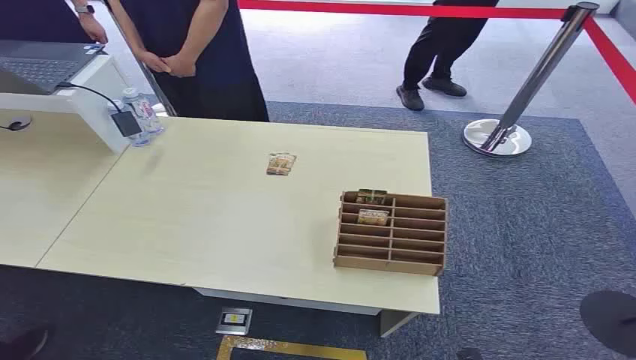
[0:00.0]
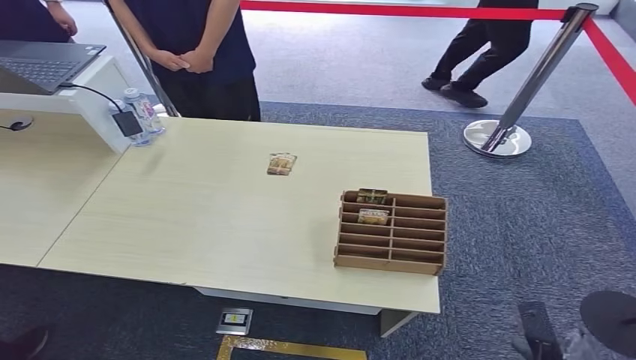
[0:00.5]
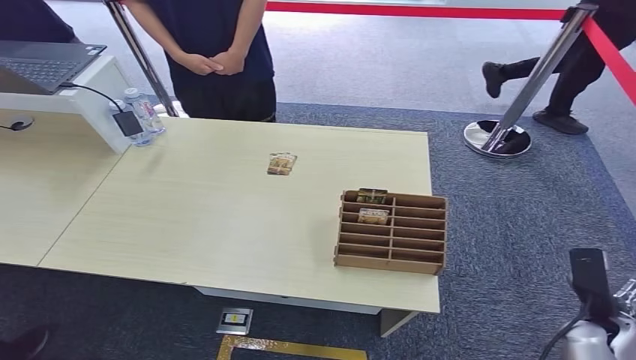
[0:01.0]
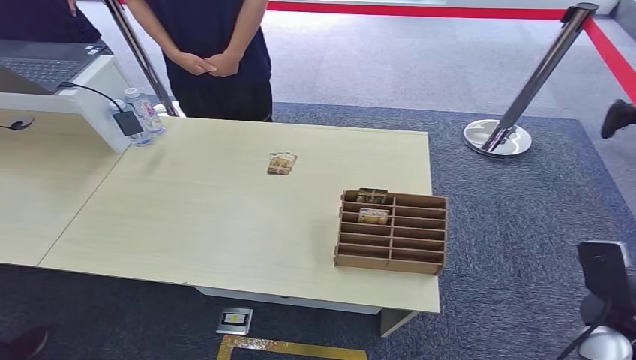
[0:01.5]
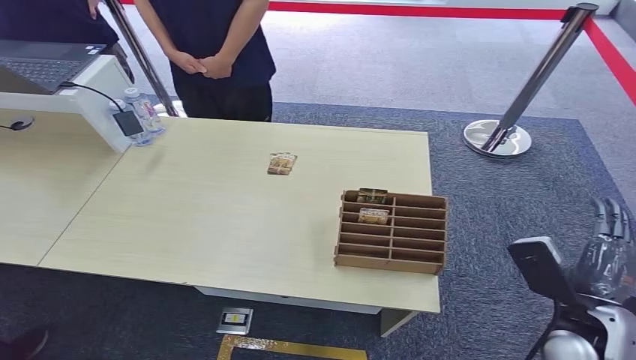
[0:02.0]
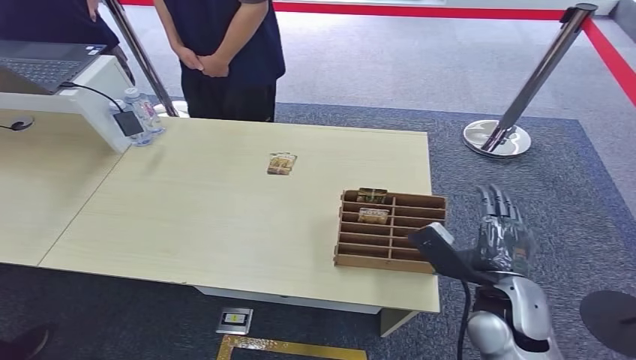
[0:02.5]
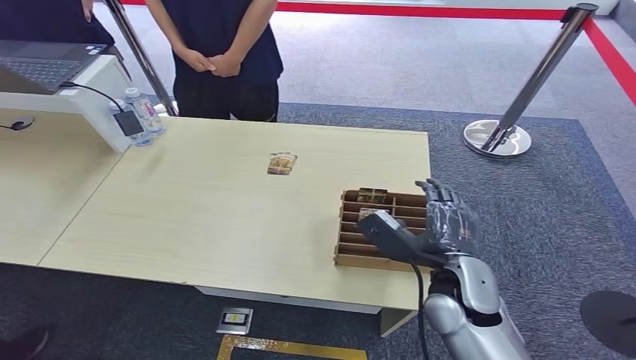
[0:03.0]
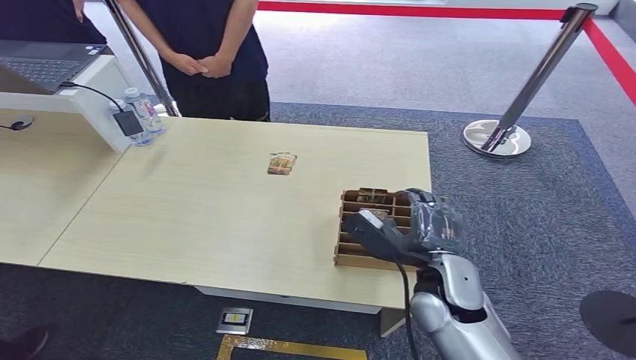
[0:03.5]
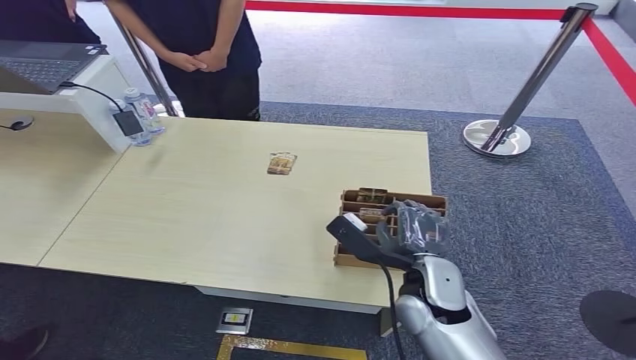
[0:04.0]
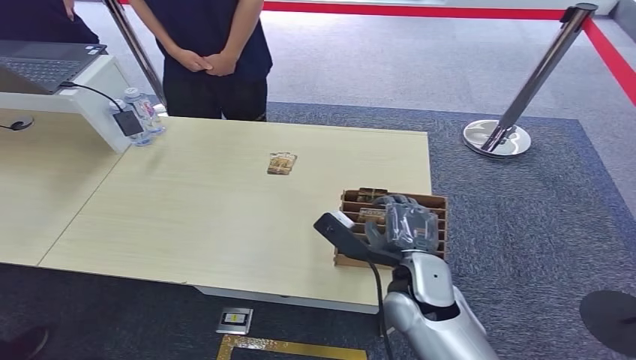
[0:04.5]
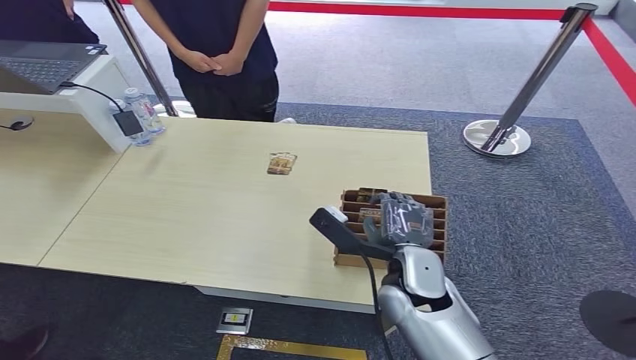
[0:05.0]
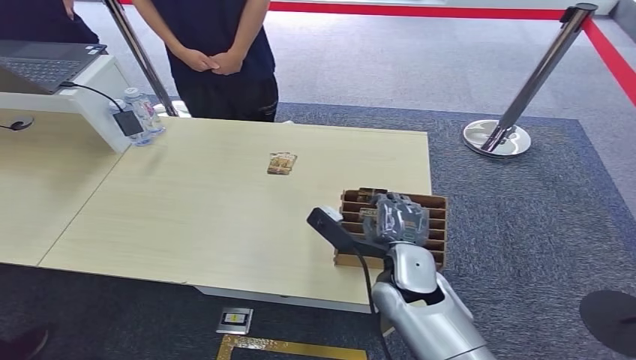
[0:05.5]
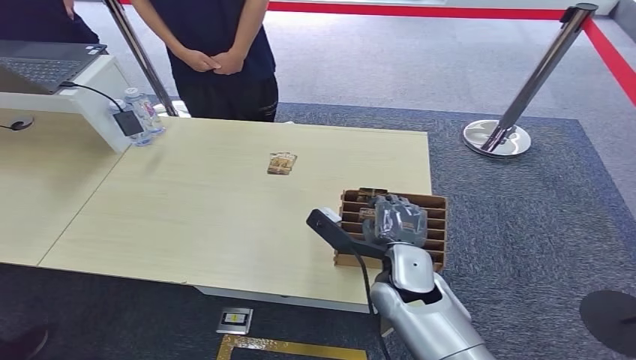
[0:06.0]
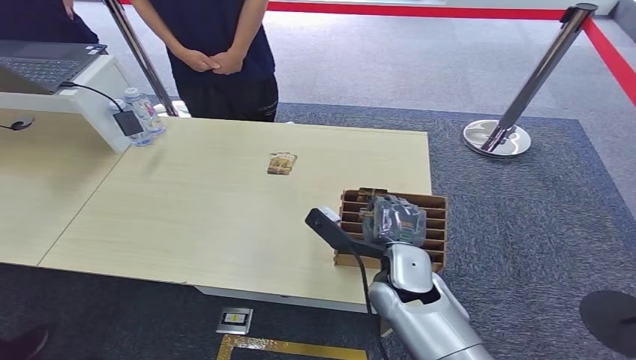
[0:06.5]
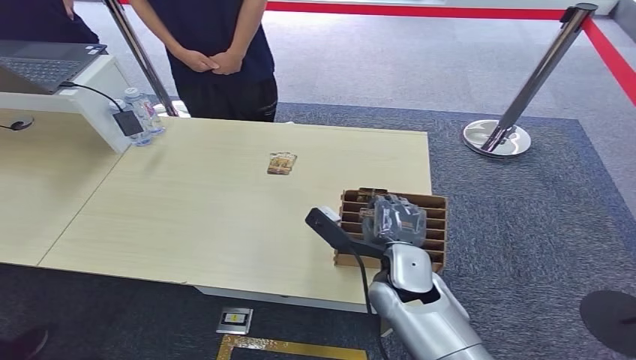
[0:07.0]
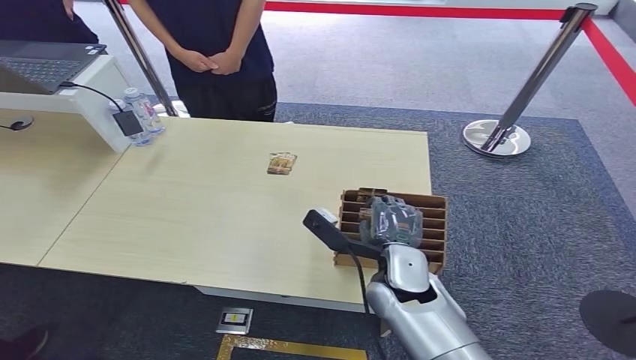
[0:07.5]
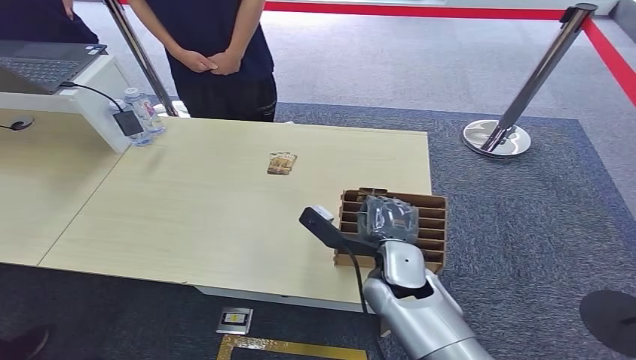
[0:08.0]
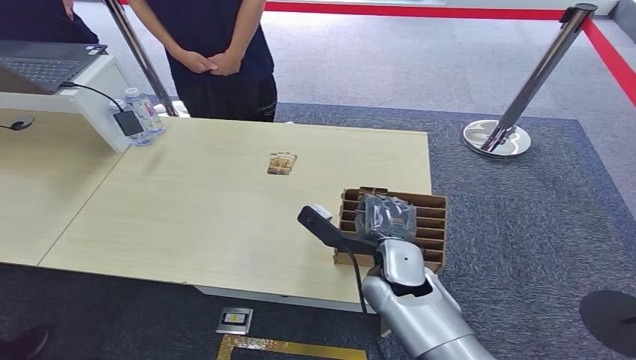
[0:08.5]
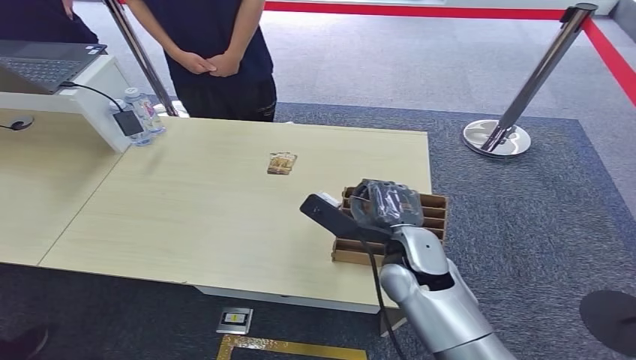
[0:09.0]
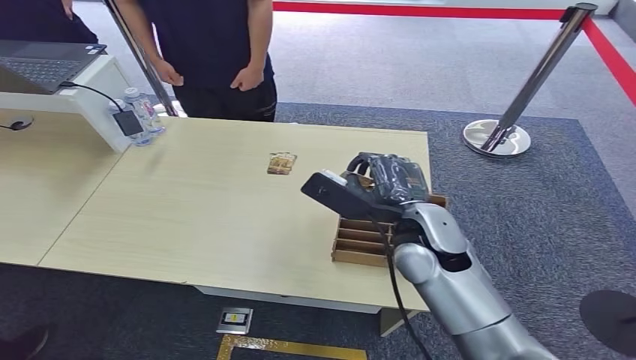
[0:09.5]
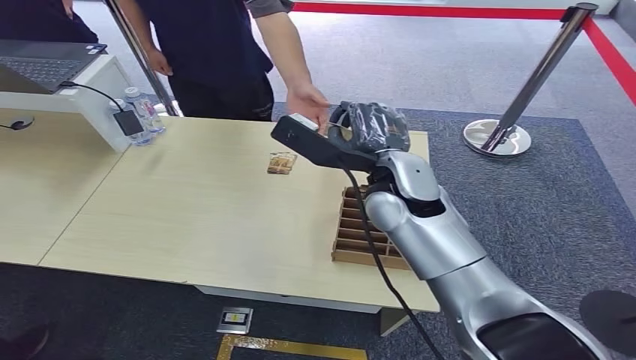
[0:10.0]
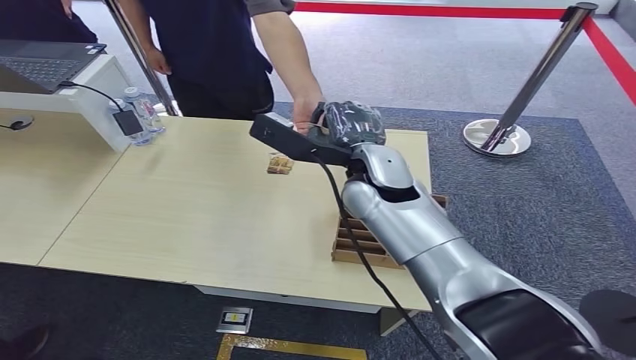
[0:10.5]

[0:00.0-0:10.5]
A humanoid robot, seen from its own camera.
Step, 0:00.0 to 0:09.5: Pick up the key card from the card box.
Step, 0:10.0 to 0:10.5: Hand the key card to the target.
0:02.0 to 0:04.0: The right hand is displaced to the left by roughly 20 cm.
0:04.0 to 0:06.5: The hands move only a little.
0:06.5 to 0:08.5: Both hands stay put.
0:08.5 to 0:10.5: The right hand travels upward and forward by roughly 20 cm.
